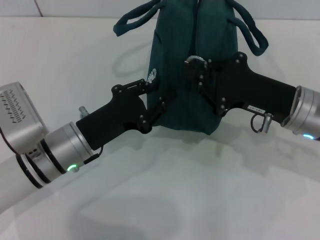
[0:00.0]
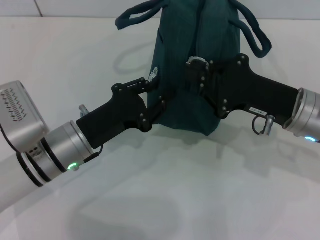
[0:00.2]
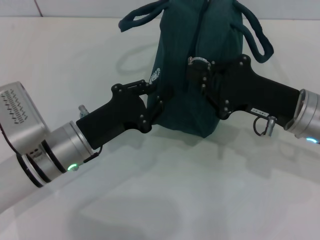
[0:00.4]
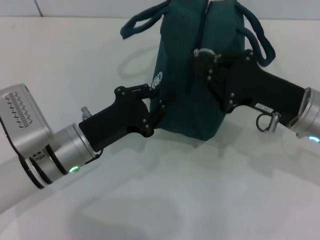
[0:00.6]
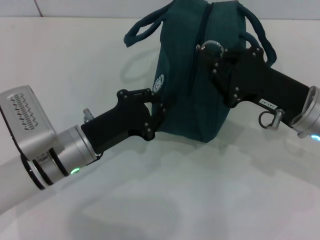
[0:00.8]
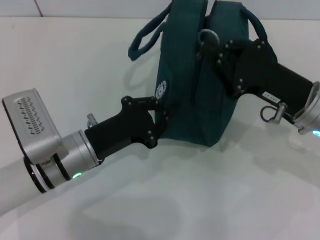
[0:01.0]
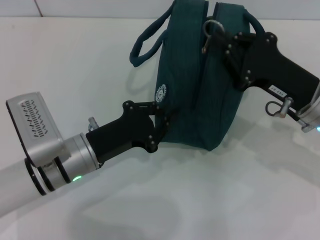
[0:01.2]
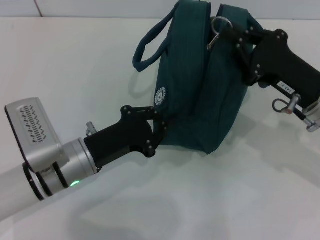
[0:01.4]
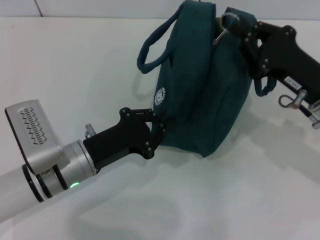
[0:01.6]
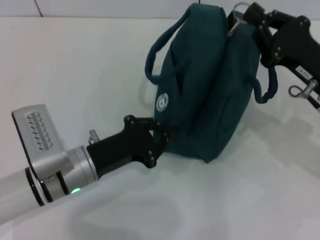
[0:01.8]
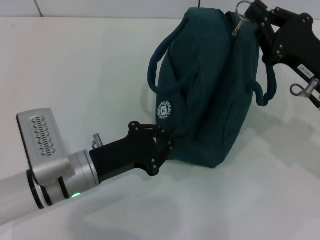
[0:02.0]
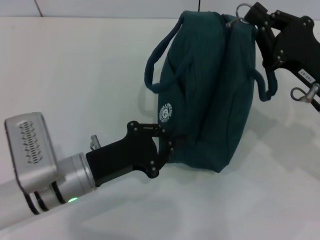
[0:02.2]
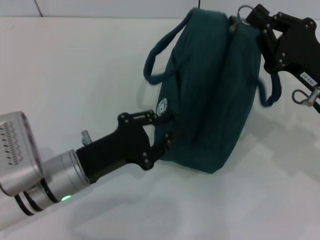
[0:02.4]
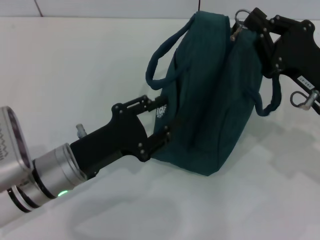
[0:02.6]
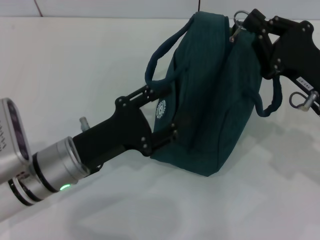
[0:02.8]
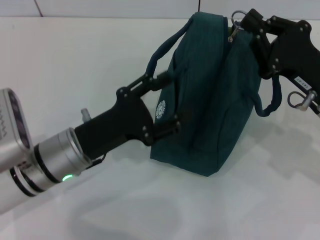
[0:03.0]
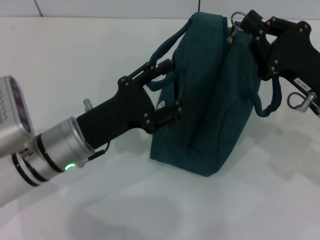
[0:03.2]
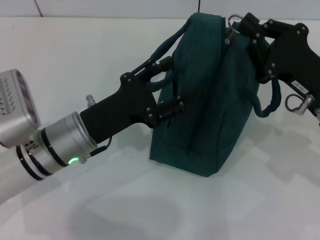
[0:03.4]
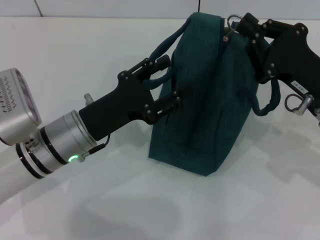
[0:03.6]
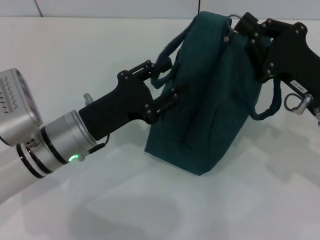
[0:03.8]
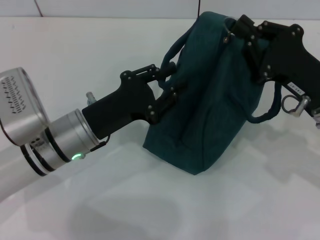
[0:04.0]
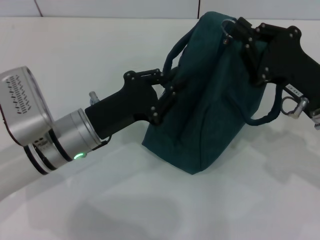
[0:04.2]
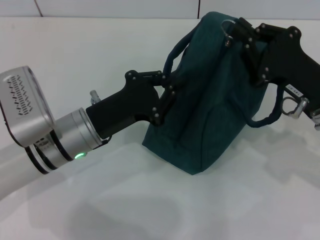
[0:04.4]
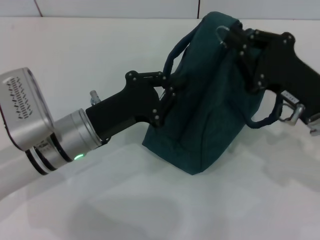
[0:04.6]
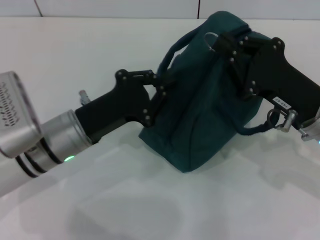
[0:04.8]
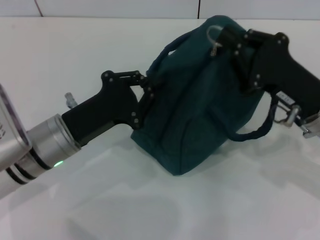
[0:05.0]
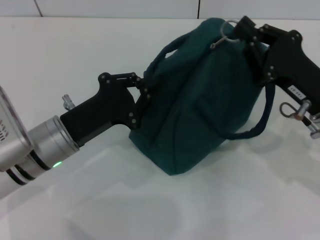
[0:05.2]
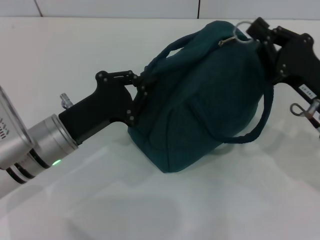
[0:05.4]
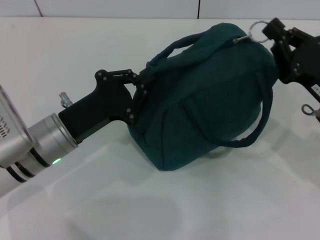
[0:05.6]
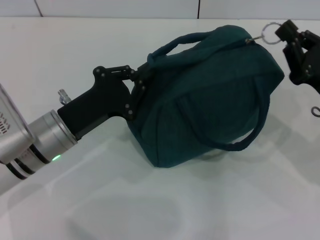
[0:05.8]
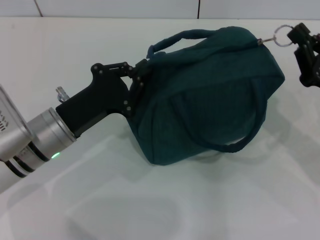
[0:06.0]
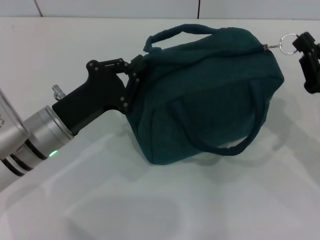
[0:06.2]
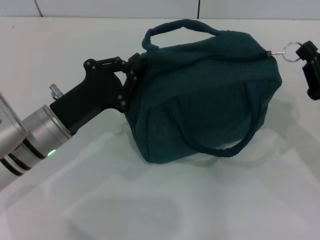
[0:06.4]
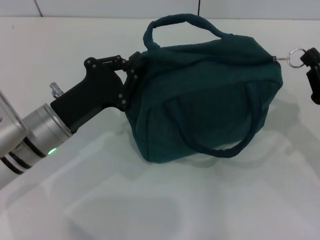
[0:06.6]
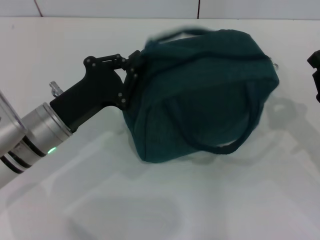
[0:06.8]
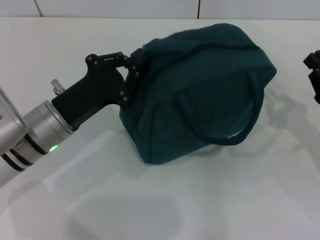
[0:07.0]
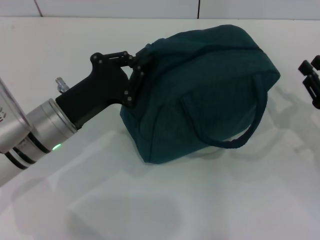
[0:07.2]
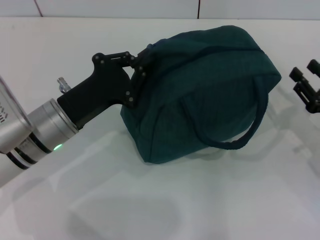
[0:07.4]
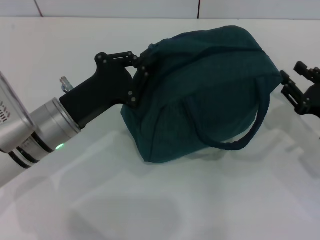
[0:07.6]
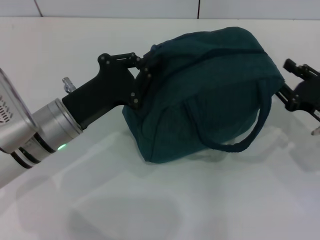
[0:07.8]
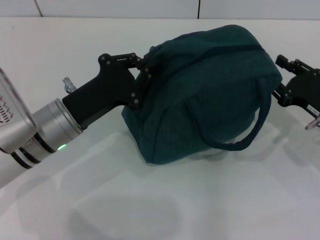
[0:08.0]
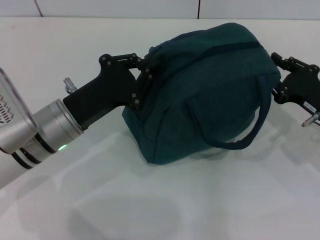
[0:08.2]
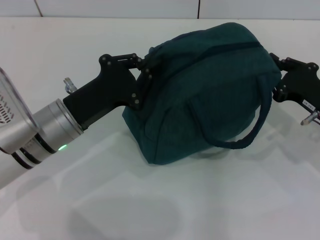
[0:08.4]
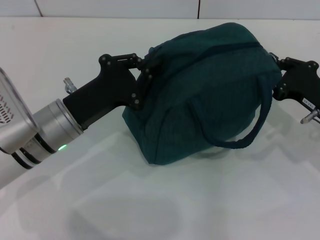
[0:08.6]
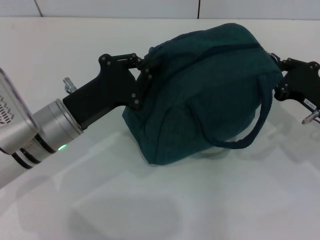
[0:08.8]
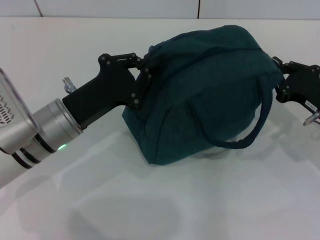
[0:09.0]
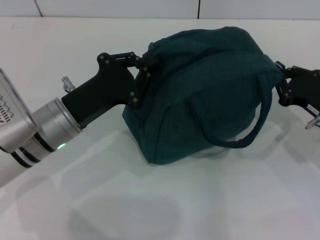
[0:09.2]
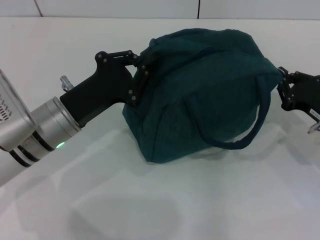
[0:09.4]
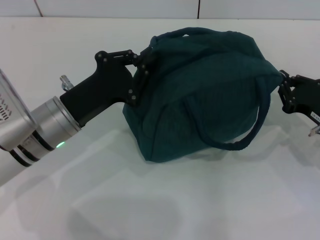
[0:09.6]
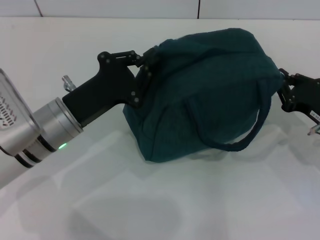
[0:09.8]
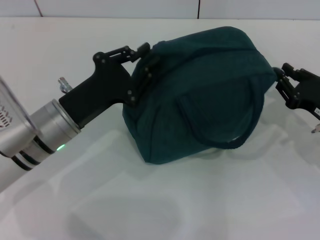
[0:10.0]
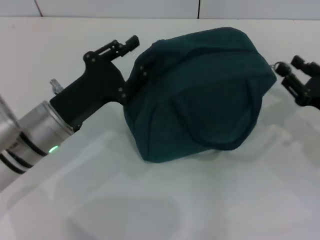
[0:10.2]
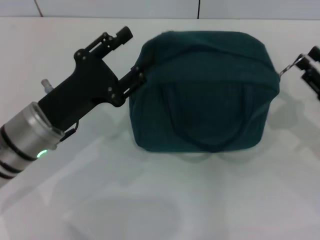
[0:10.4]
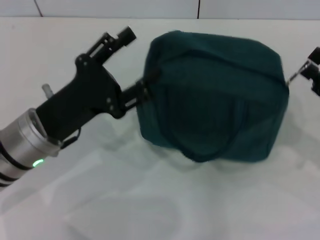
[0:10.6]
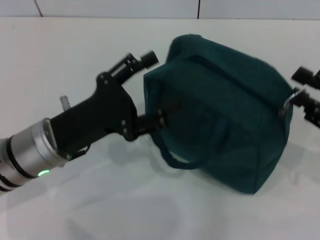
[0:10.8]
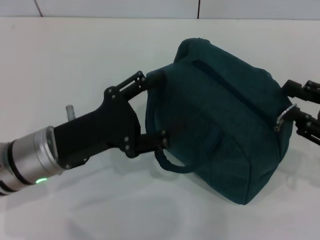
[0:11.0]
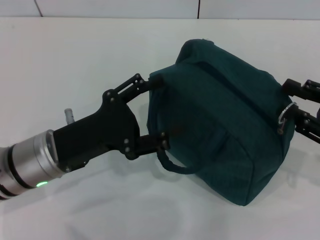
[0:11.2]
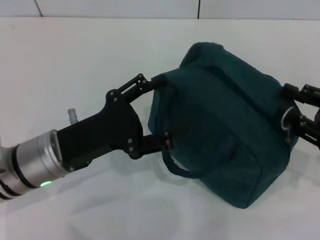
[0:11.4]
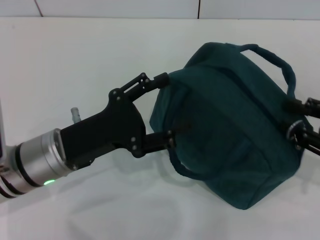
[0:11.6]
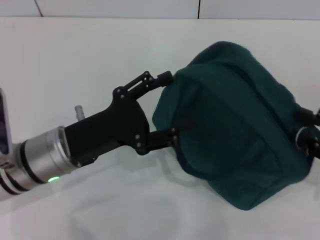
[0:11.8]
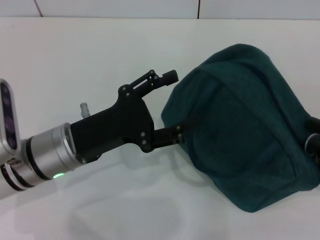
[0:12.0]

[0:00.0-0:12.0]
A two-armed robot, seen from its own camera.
Step, 0.0 to 10.2 s: Hold the lunch bag with your left hand.
1.6 to 3.0 s: The left gripper opens its fingers.
3.0 to 4.4 s: The left gripper closes up.
4.4 to 6.0 s: The right gripper moves some 5 cm.
6.0 to 7.6 s: The right gripper opens.
7.6 to 9.0 s: The right gripper closes.
9.0 to 10.4 s: The right gripper ends up about 5 cm from where it was, and opens up, while the left gripper opens up.
10.4 to 12.0 s: The left gripper opens its fingers. Meanwhile the right gripper goes some 5 cm backward.

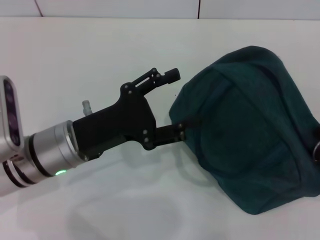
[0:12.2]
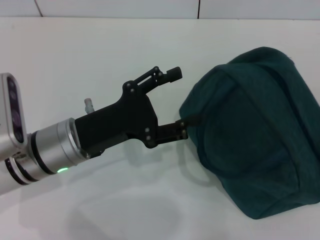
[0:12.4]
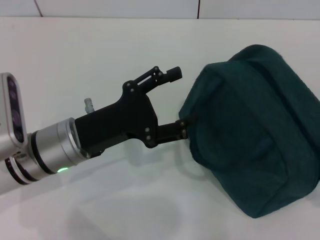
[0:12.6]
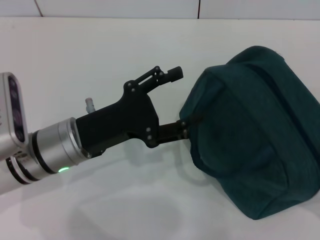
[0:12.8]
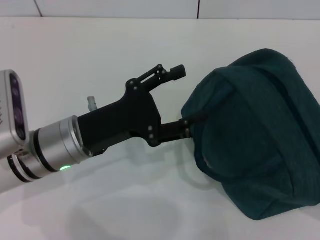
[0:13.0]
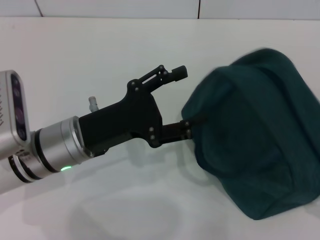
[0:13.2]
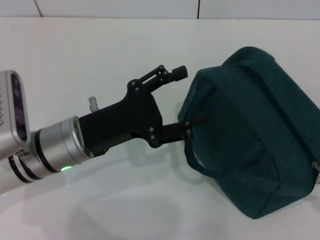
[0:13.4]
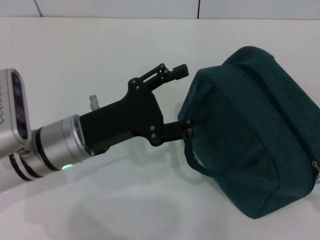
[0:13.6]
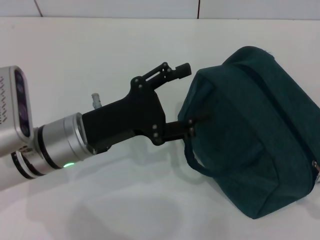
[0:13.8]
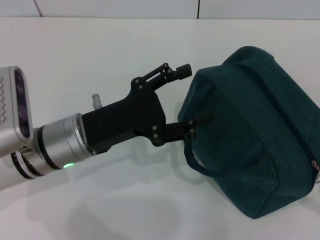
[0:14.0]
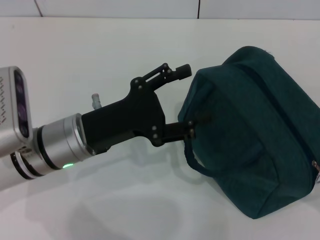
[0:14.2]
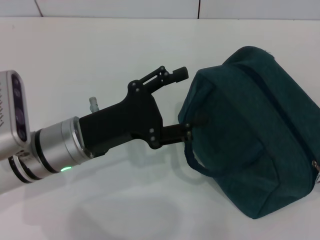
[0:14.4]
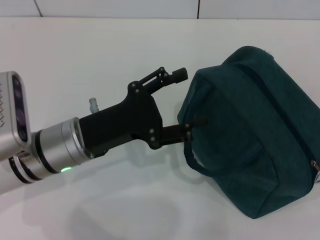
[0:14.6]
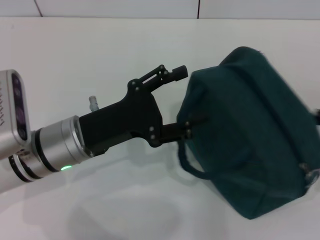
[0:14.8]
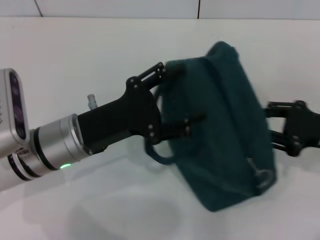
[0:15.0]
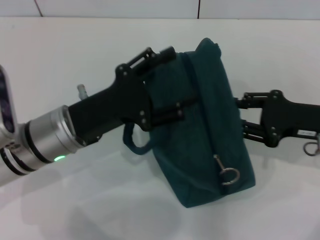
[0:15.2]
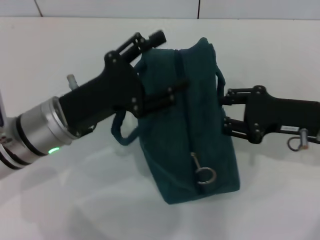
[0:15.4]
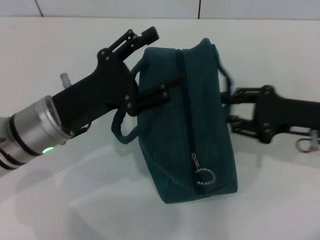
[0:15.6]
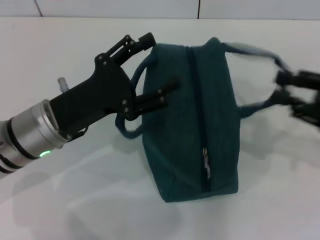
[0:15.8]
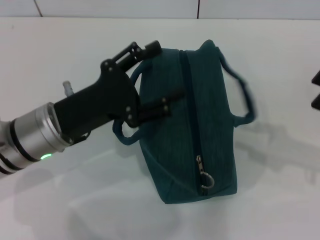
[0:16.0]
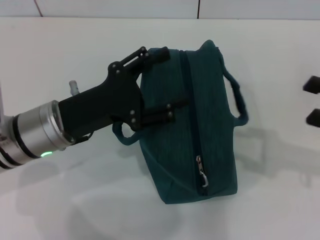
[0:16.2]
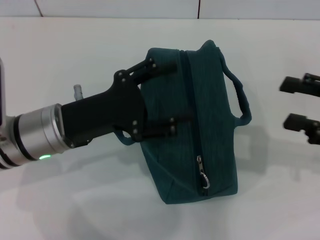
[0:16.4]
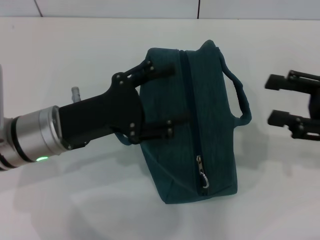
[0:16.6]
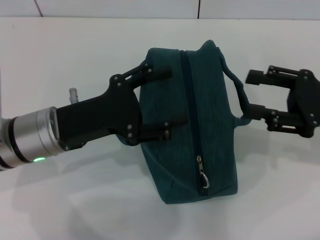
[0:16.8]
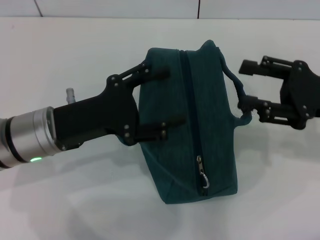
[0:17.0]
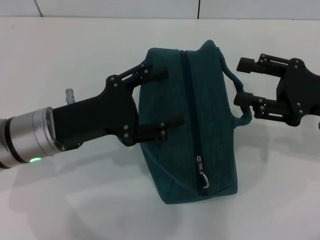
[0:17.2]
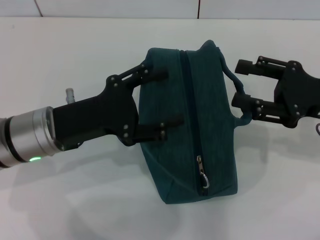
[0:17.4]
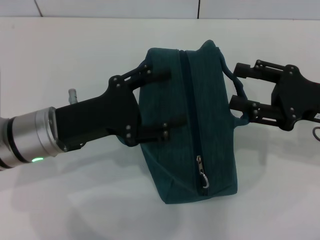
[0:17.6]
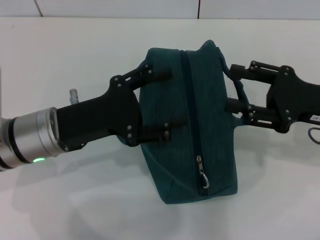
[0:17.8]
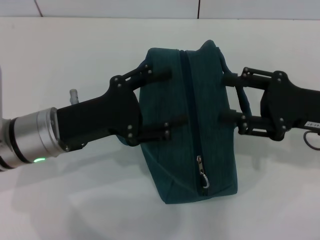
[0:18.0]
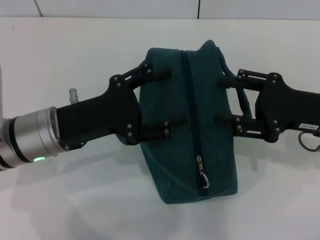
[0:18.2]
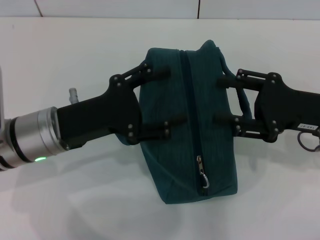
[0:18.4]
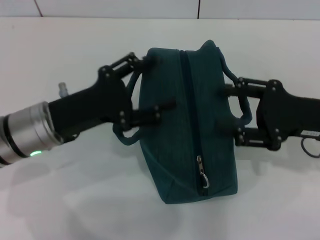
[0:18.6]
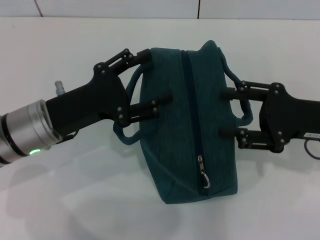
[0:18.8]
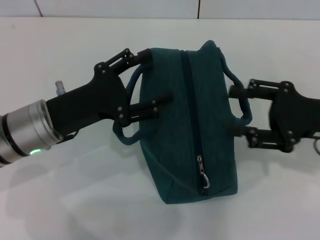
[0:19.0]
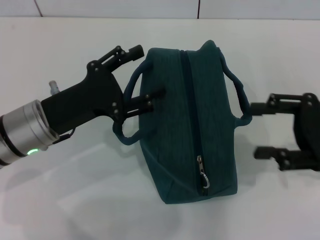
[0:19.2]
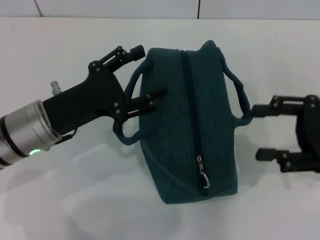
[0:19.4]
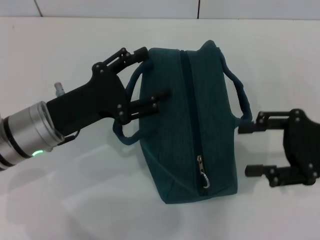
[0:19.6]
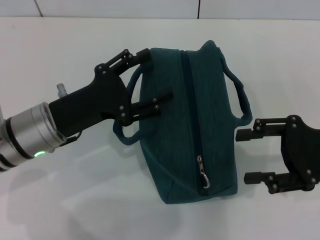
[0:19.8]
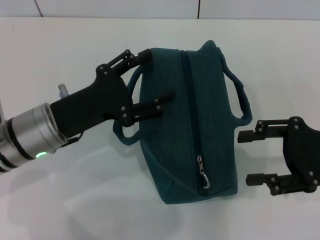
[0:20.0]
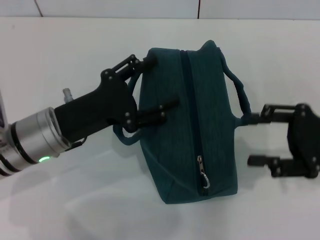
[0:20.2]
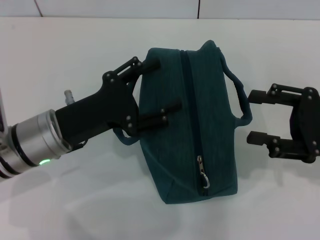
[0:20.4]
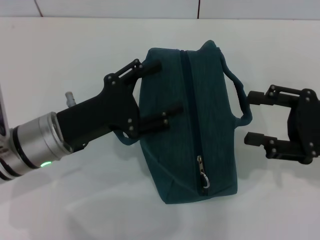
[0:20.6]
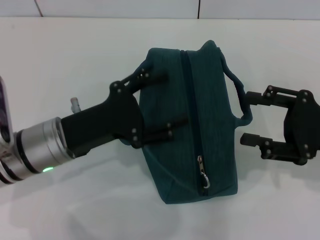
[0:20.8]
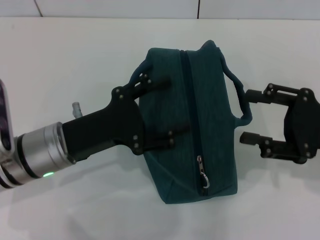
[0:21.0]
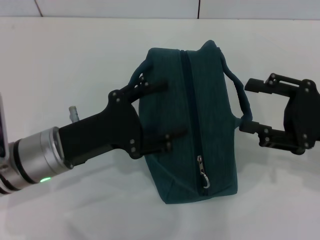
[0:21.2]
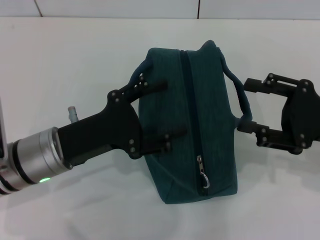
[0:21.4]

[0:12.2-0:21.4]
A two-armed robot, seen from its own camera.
Step, 12.2 to 14.4 s: Zip up the lunch bag with your right hand.
12.2 to 13.8 s: The right gripper moves to the right, approximately 5 cm.
13.8 to 15.2 s: The right gripper is displaced to the left and forward by approximately 20 cm.
15.2 to 16.8 s: The right gripper reaches some 10 cm to the right, then returns.
16.8 to 19.8 s: There are only small adjustments of the grippers.

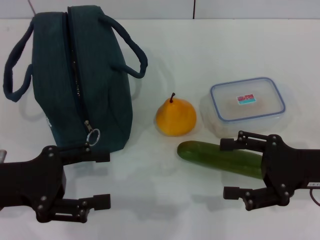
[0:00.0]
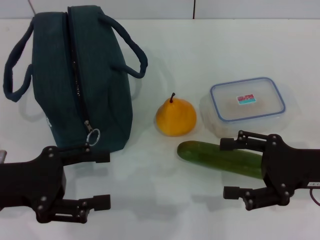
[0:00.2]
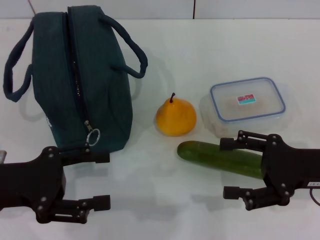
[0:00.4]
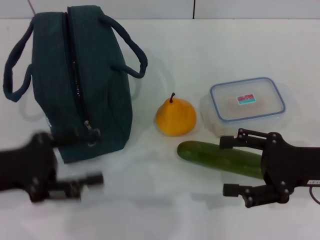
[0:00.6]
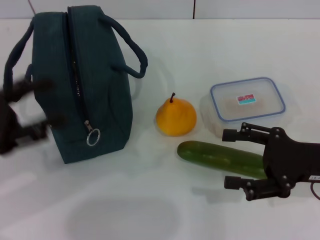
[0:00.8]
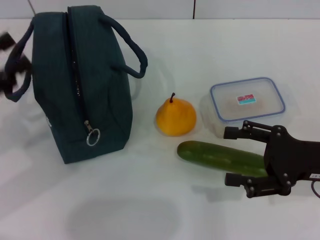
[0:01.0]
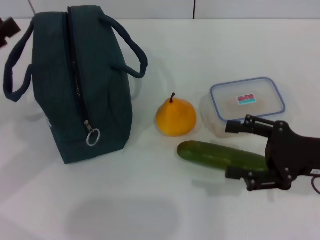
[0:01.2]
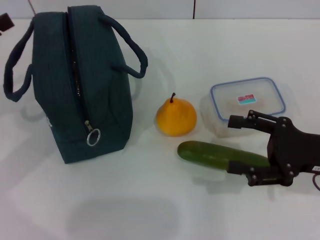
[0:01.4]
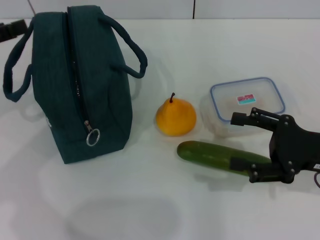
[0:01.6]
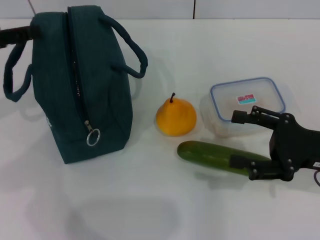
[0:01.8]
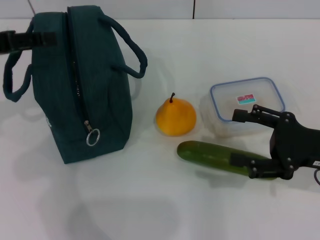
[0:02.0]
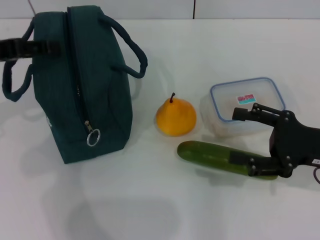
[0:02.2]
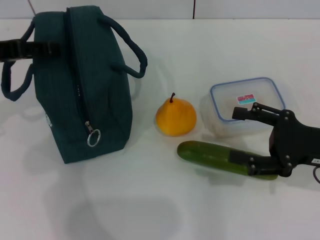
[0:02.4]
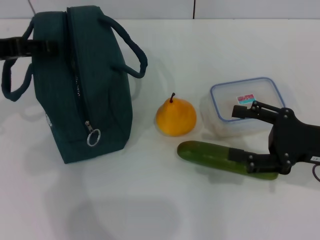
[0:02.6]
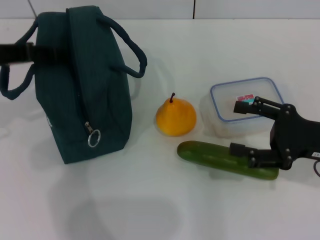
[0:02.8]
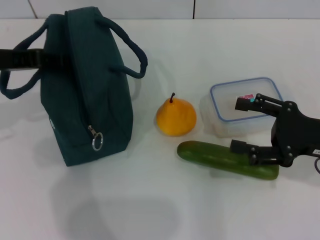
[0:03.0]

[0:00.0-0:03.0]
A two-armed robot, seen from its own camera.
0.0 to 1.6 s: The left gripper is displaced forward, upward and to the left by roughly 15 cm.
1.6 to 3.0 s: The left gripper heads to the right, covering roughly 5 cm.
